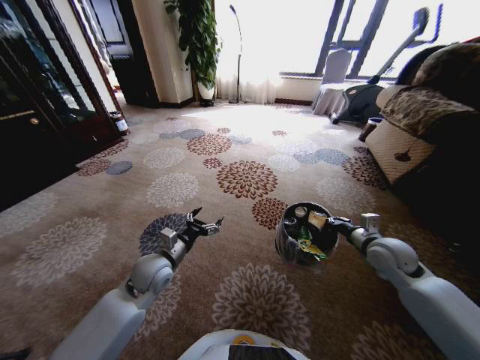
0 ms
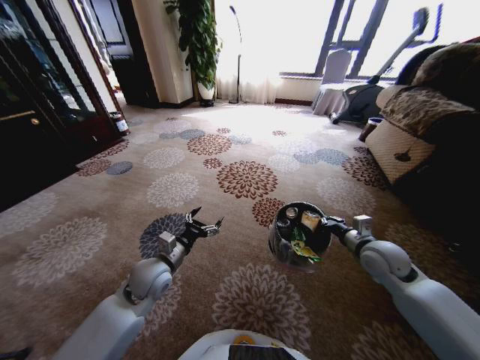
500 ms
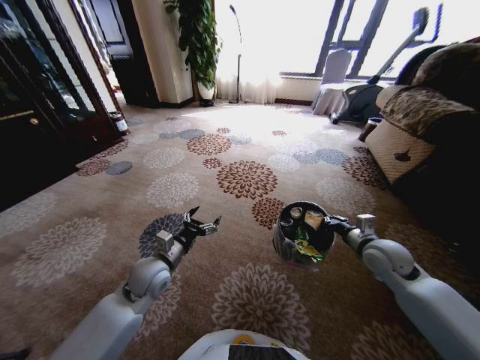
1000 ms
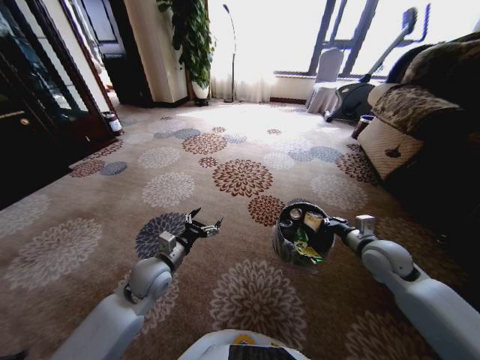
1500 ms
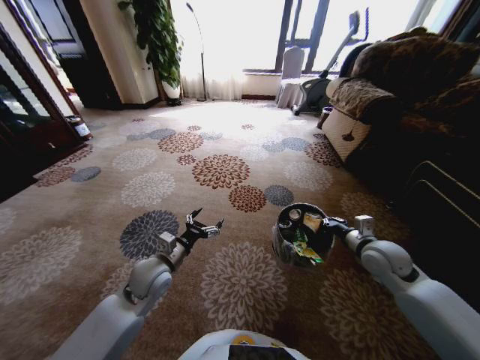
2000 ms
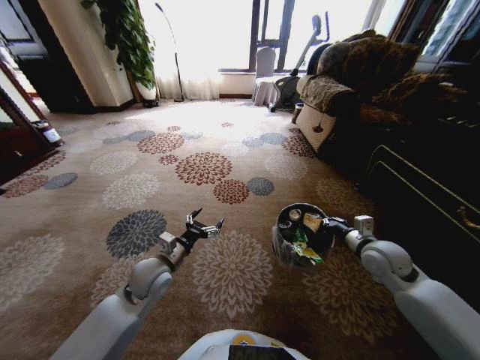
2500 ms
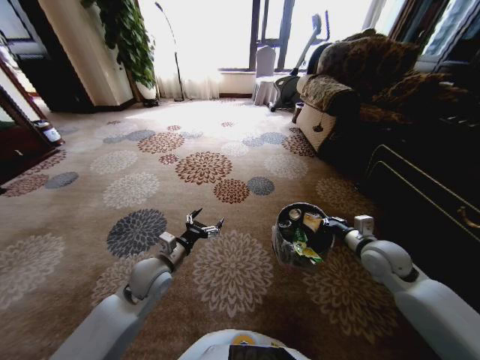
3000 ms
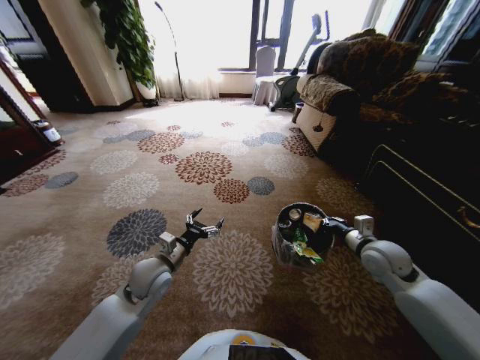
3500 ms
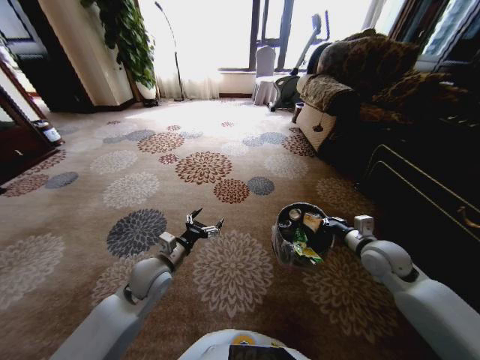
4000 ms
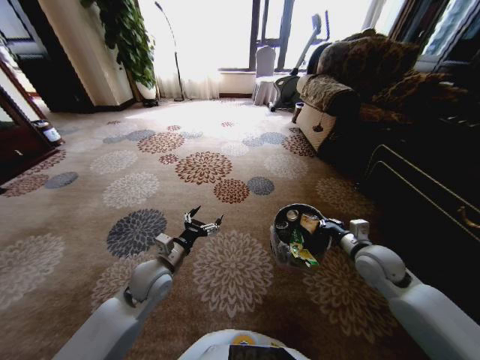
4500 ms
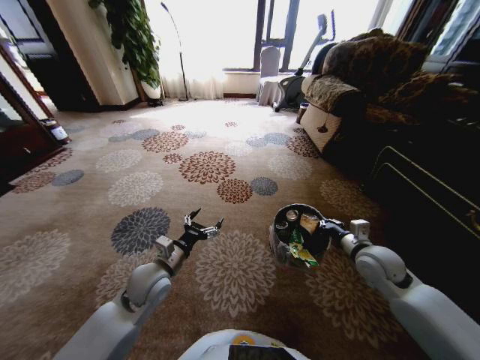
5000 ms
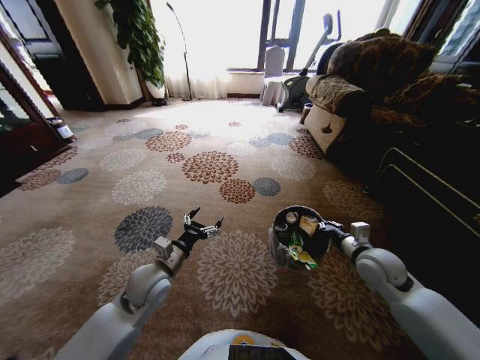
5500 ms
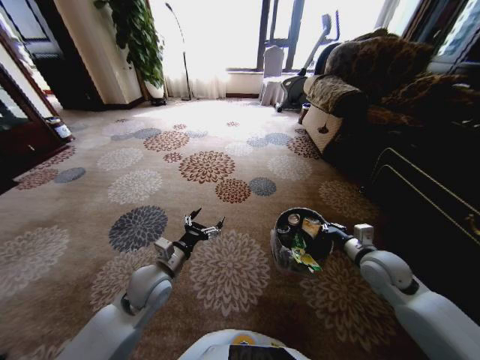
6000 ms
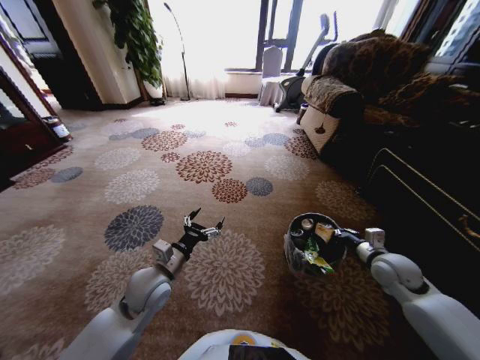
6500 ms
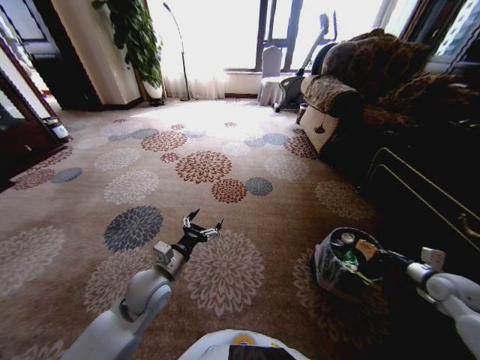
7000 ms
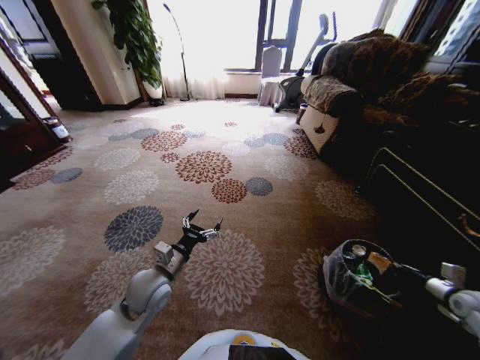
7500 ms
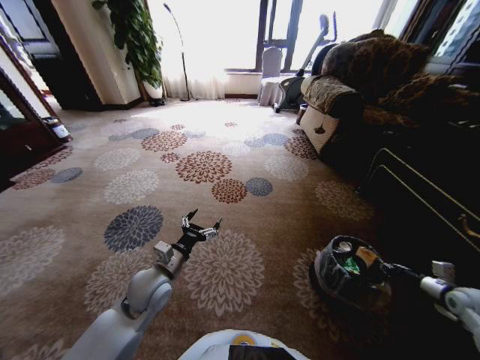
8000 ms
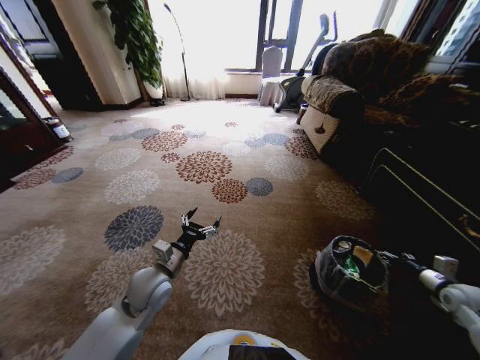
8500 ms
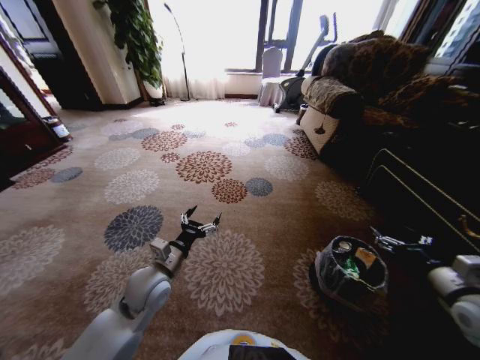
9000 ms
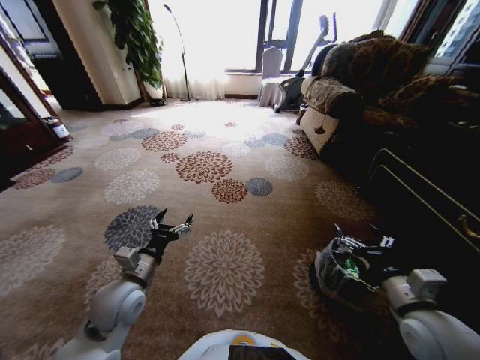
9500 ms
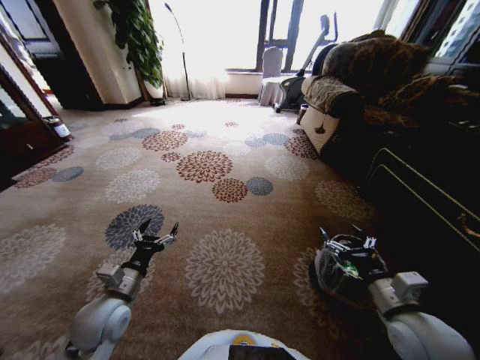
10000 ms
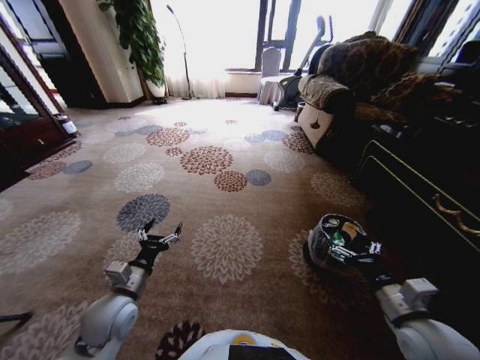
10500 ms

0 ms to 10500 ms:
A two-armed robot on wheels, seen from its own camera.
Task of the whole recording: Pick up the trash from the ground and place it into the trash bin.
4000 ms to 6500 ms: The right gripper moves some 5 cm.
6500 ms to 8500 ms: The right gripper travels to the right by about 20 cm, and opens.
8500 ms to 10500 ms: The left gripper travels backward and to the left by some 10 cm; the right gripper is displaced to the left by roughly 25 cm, and opens.

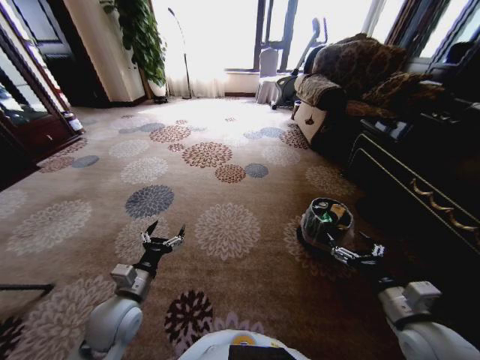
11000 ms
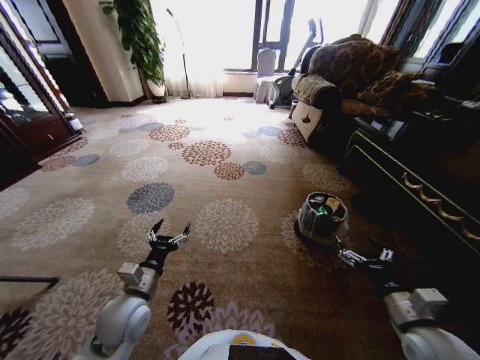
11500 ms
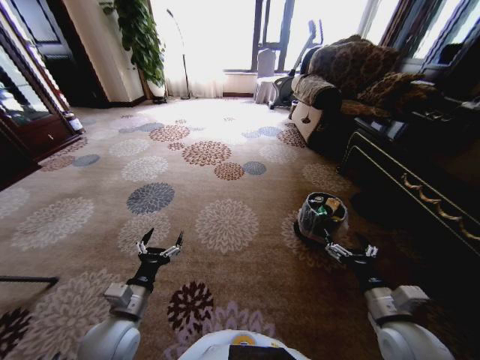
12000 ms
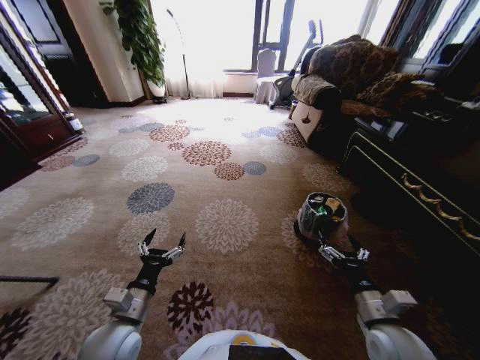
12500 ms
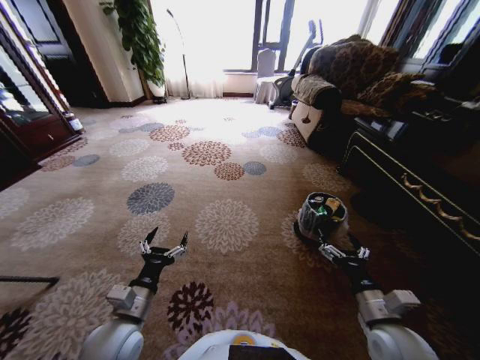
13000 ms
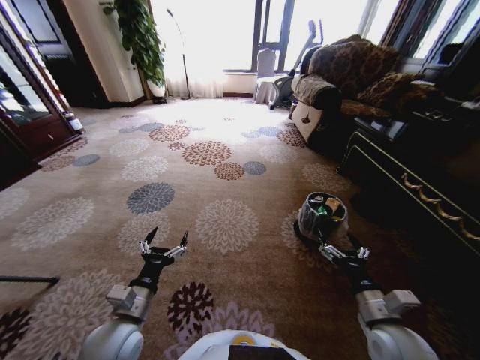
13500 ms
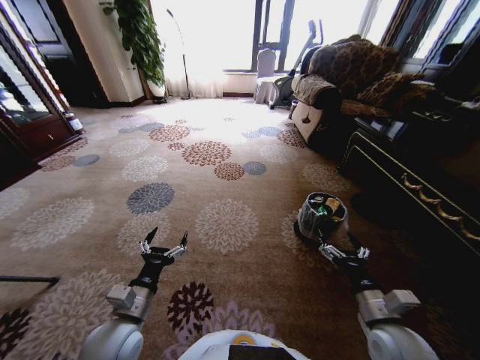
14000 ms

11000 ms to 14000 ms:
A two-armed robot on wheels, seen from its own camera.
Task of the whole recording: Pick up the trash from the ground and place it into the trash bin.
11000 ms to 12500 ms: The right gripper ends up some 5 cm from where it was.
12500 ms to 14000 ms: Both grippers stay put.
